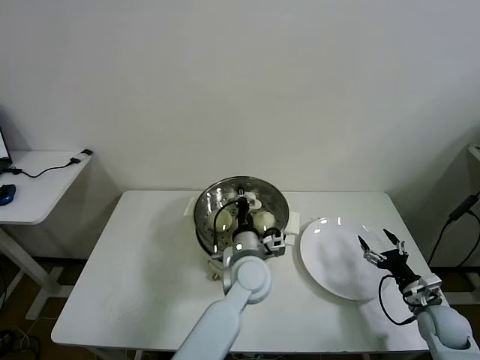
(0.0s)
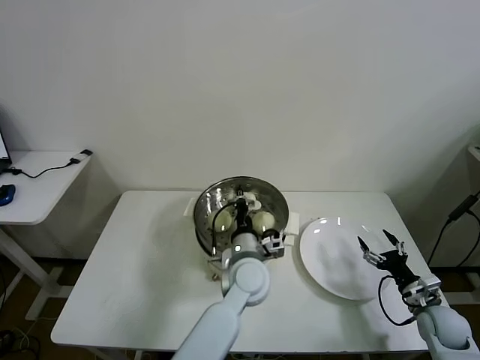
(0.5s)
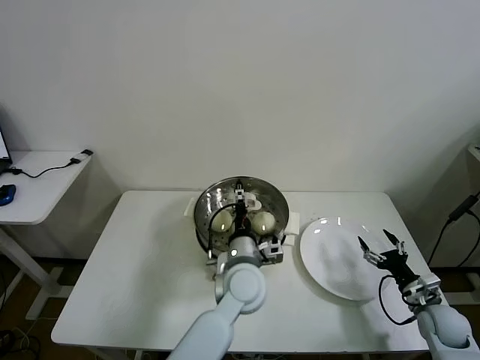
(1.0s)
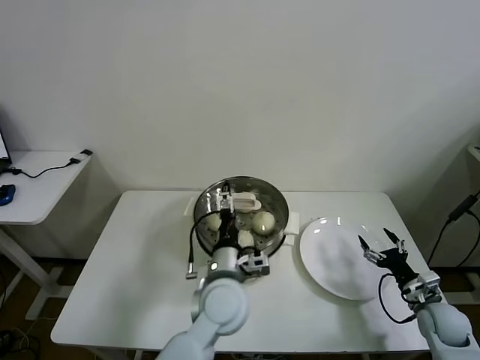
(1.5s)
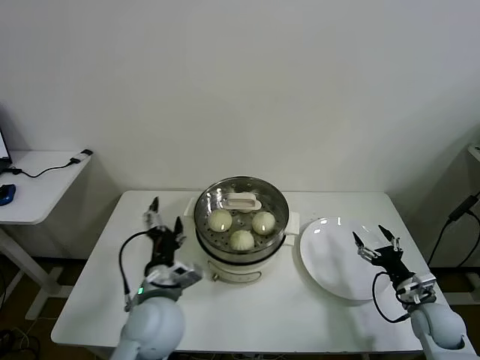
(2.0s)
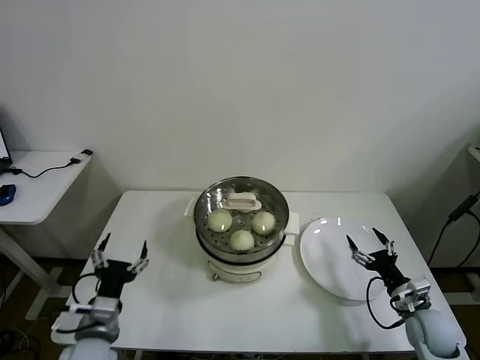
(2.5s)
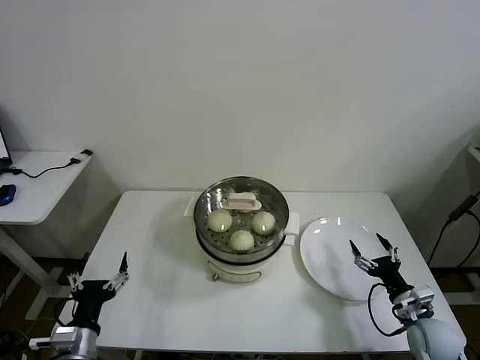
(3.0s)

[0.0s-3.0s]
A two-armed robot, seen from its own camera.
Task of the whole recording: take steamed baozi put them in steamer then cover it.
0.0s to 1.5s: The left gripper shifts about 5 cm backward, and opens up.
1.5s to 3.0s: The left gripper travels to the left and backward by approximately 30 cm. Meanwhile the right gripper changes place by about 5 cm.
